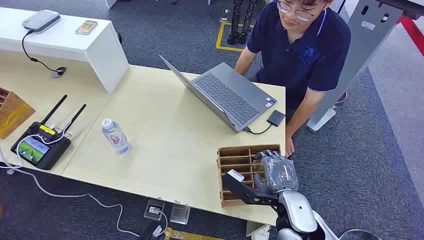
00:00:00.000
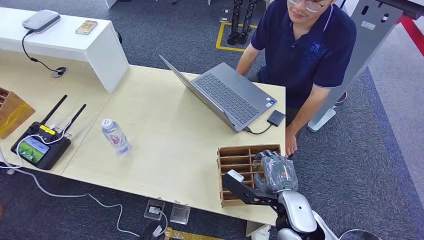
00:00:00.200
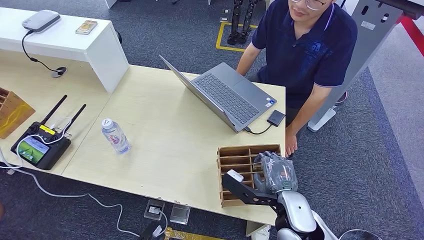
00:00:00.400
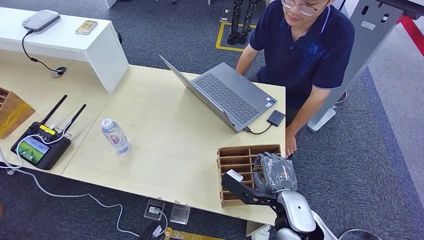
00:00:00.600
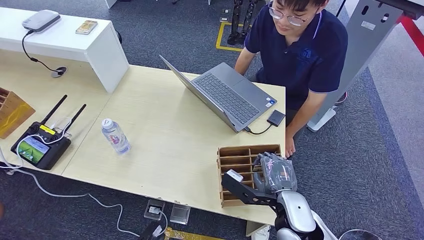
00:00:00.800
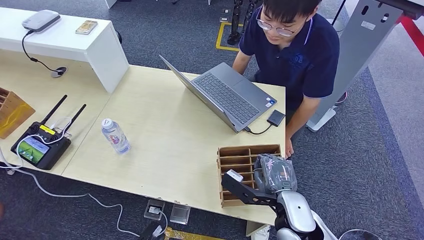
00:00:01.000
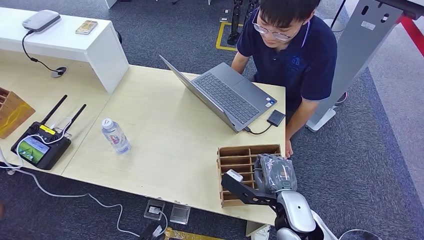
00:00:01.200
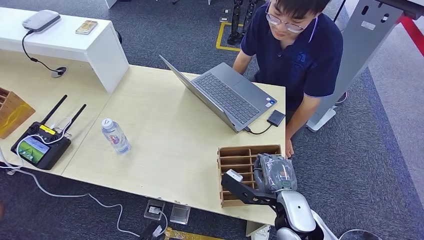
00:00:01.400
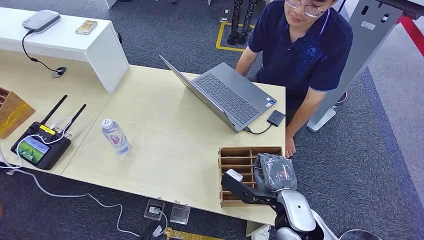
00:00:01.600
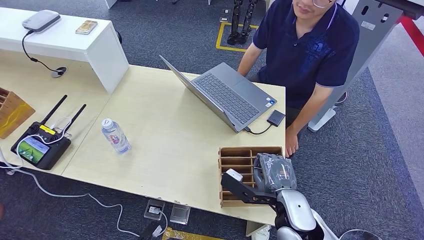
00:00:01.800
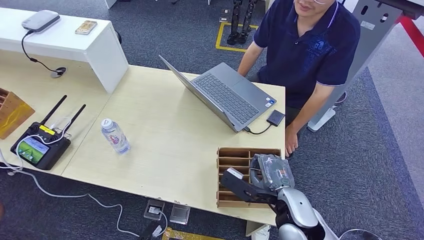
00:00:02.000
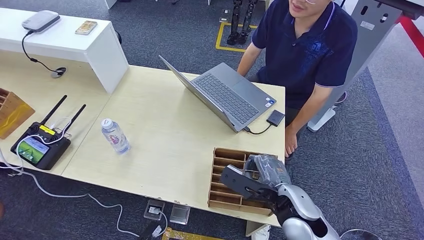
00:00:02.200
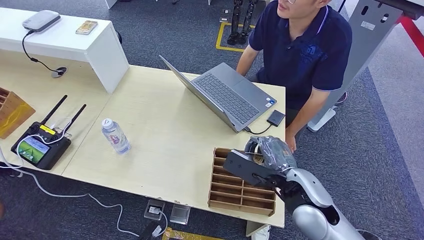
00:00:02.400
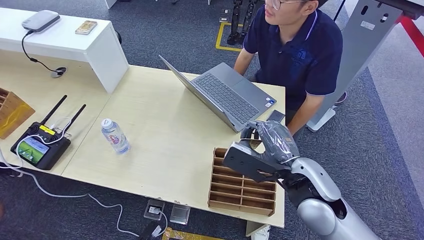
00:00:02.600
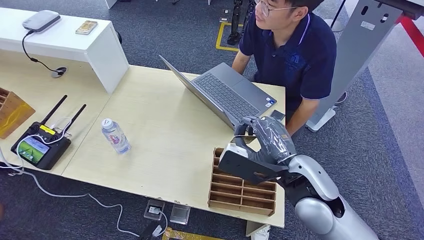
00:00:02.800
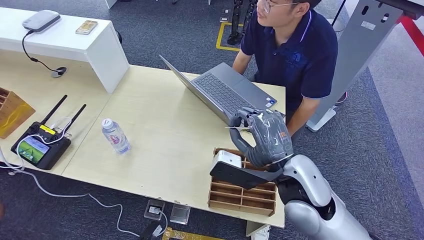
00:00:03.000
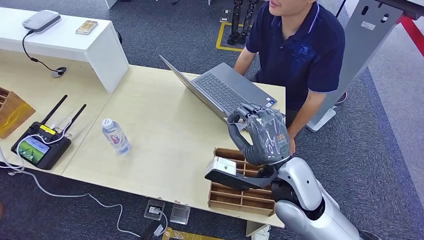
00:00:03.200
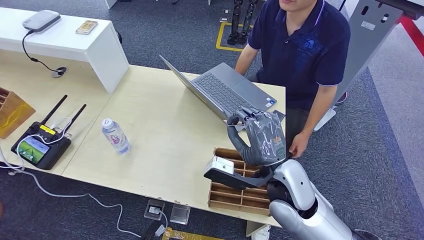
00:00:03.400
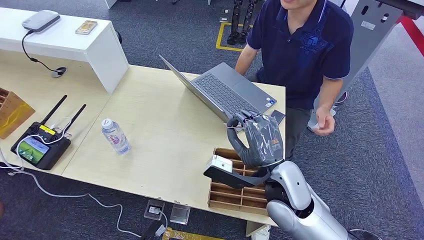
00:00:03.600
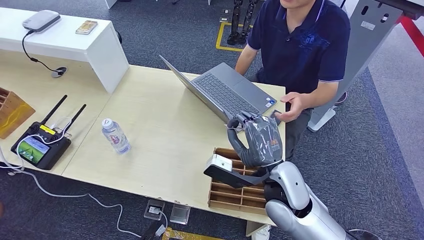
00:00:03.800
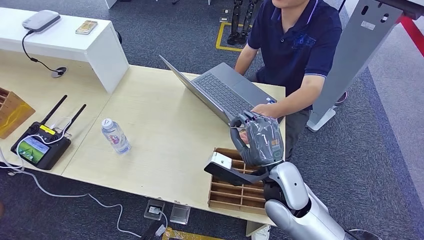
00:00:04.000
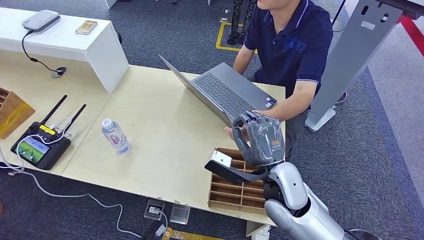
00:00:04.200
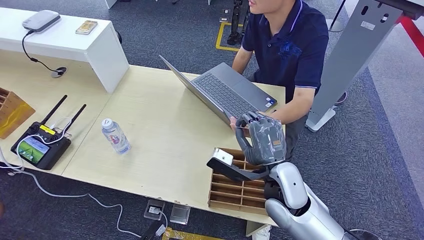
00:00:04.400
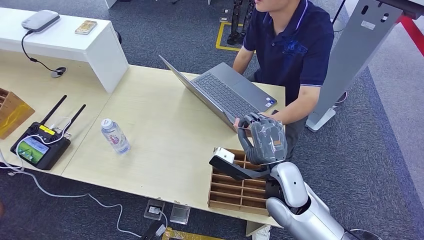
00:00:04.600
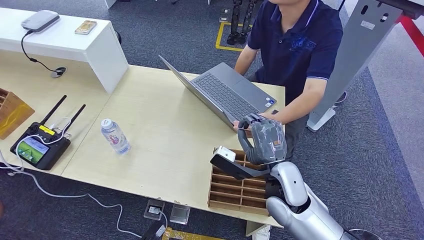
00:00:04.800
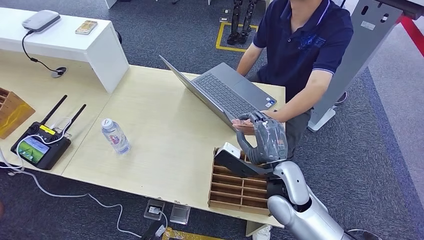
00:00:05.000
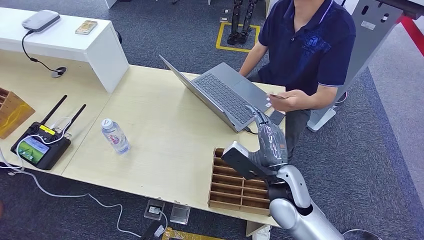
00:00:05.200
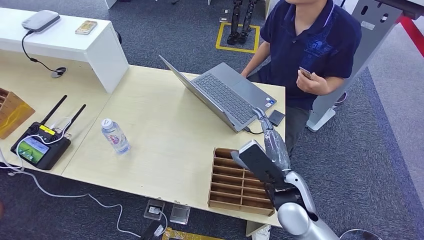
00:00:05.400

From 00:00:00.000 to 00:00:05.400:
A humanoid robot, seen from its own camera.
Step, from 00:00:00.000 to 00:00:02.600: Pick up the key card from the card box.
Step, from 00:00:03.600 to 00:00:05.400: Hand the key card to the target.
From 00:00:01.400 to 00:00:02.800: The right hand heads upward, covering roughly 10 cm.
From 00:00:02.800 to 00:00:04.000: The right hand shifts approximately 5 cm downward.
